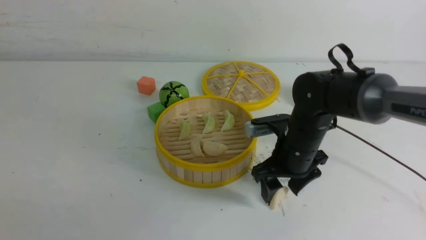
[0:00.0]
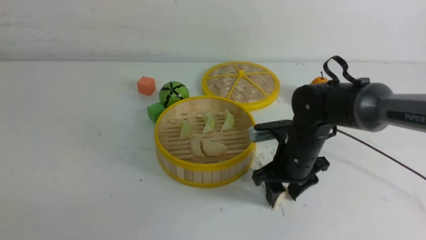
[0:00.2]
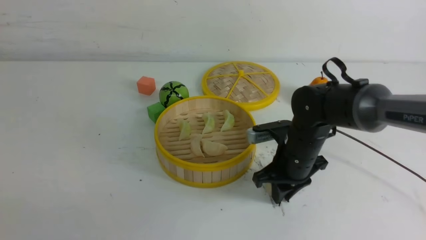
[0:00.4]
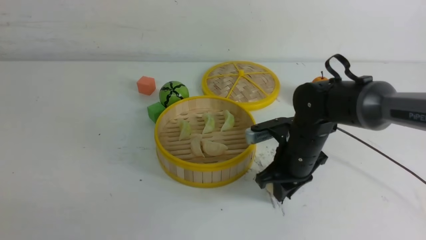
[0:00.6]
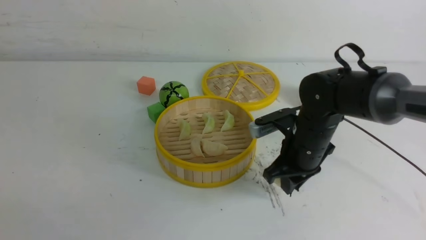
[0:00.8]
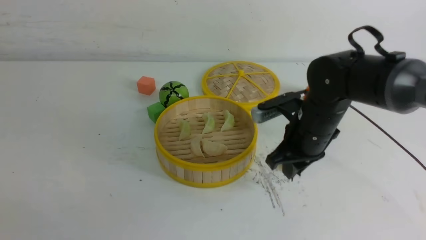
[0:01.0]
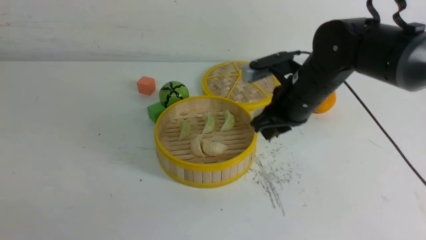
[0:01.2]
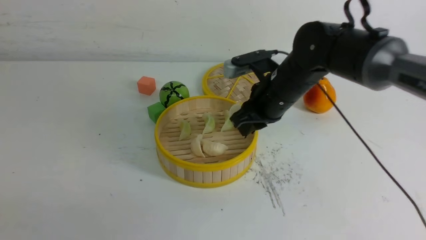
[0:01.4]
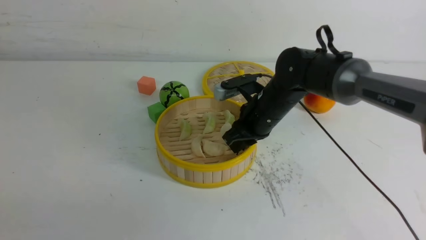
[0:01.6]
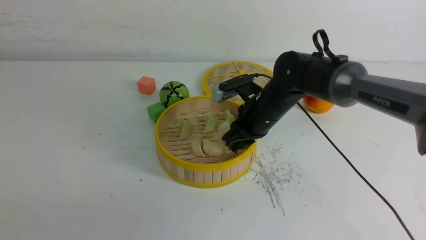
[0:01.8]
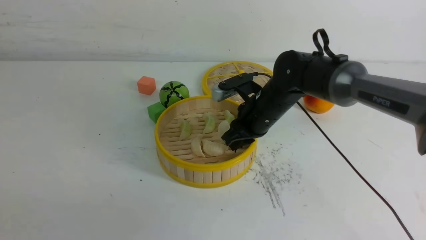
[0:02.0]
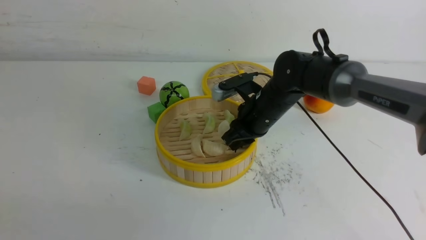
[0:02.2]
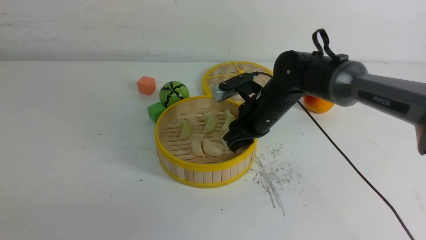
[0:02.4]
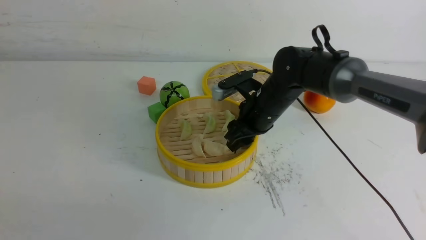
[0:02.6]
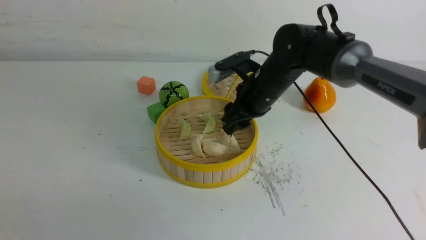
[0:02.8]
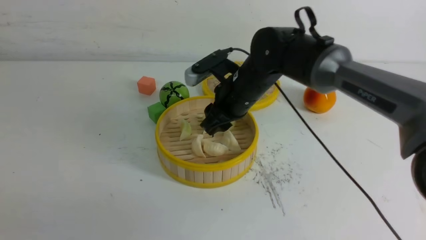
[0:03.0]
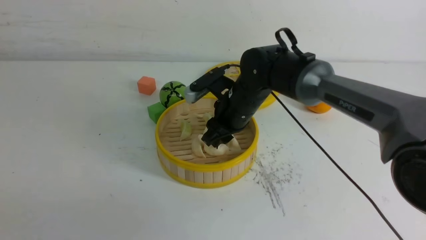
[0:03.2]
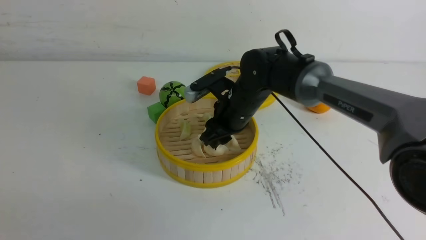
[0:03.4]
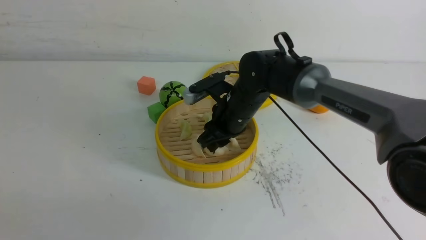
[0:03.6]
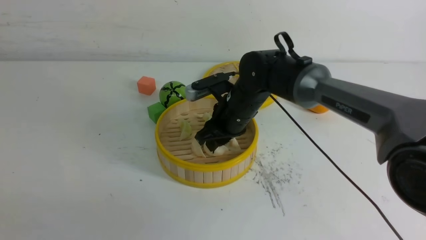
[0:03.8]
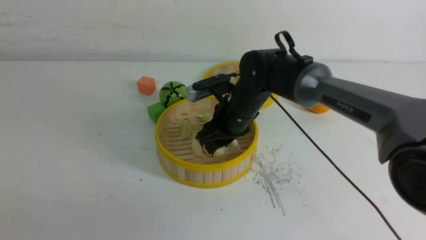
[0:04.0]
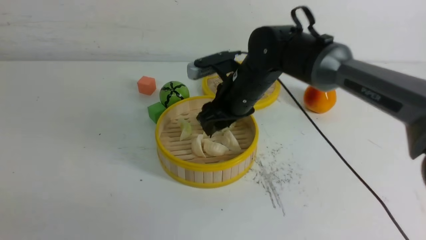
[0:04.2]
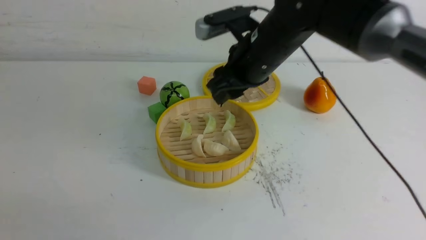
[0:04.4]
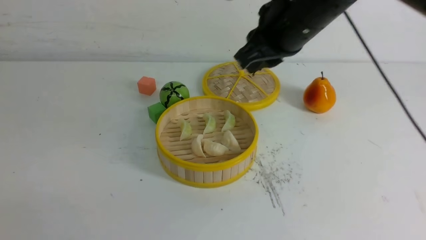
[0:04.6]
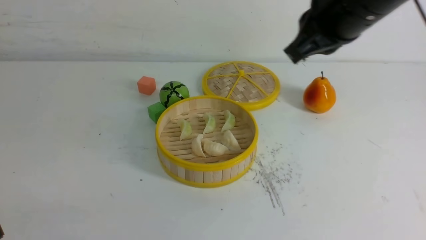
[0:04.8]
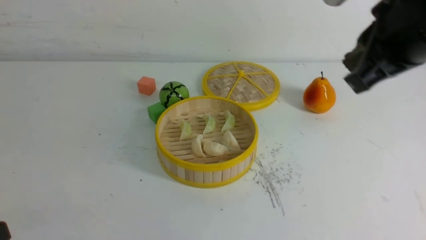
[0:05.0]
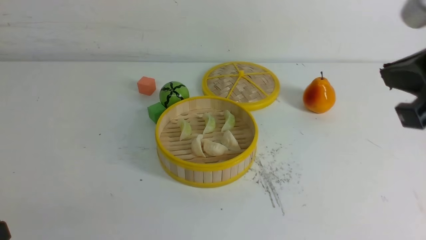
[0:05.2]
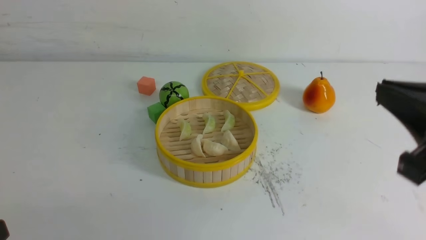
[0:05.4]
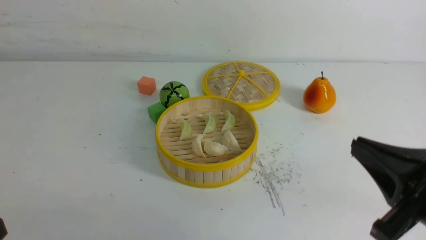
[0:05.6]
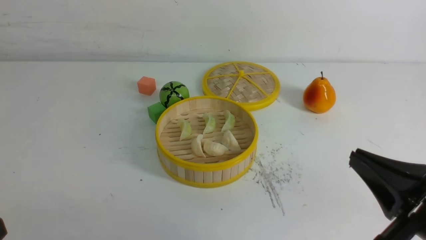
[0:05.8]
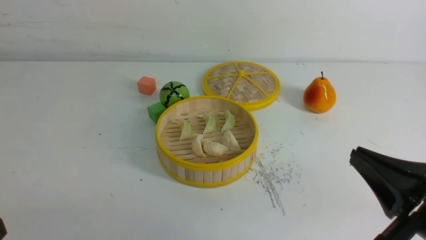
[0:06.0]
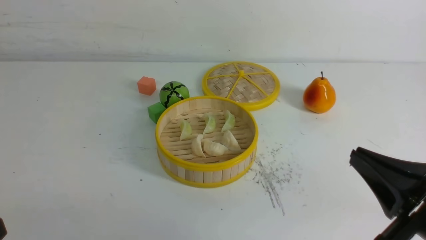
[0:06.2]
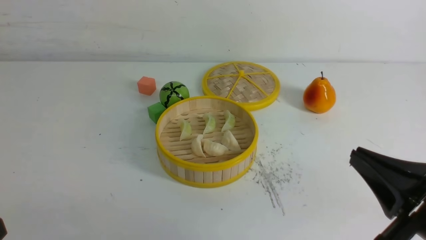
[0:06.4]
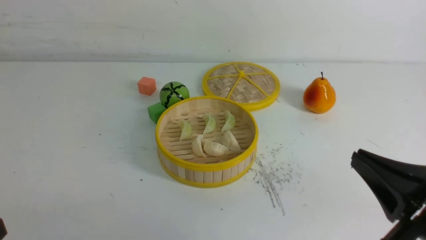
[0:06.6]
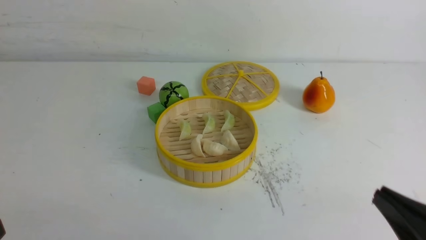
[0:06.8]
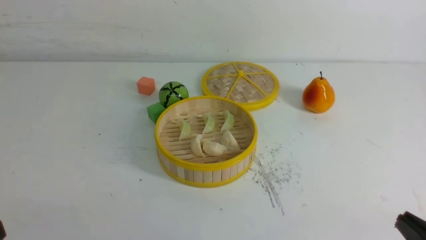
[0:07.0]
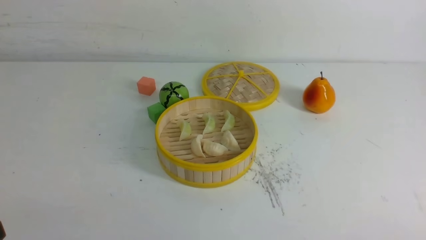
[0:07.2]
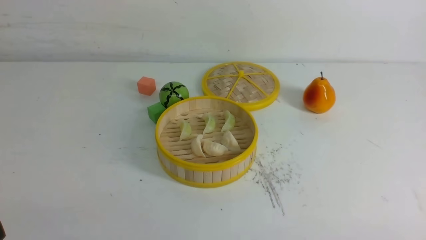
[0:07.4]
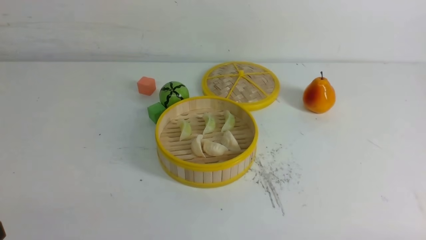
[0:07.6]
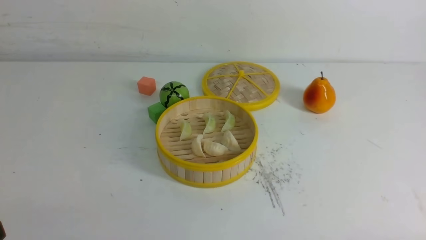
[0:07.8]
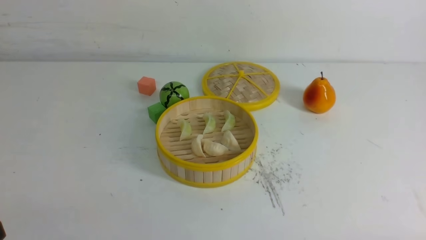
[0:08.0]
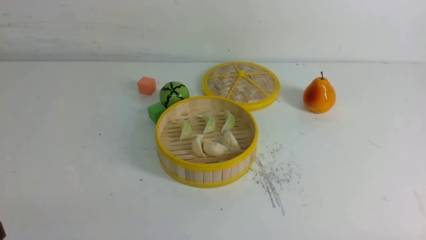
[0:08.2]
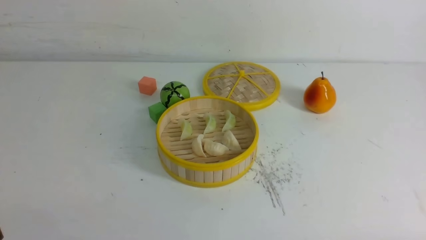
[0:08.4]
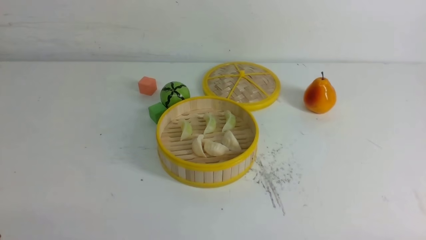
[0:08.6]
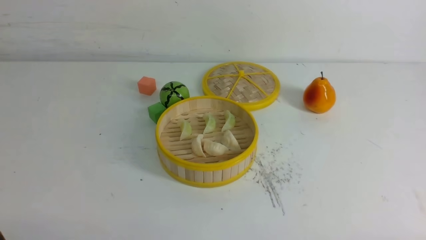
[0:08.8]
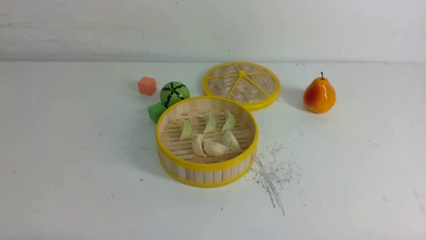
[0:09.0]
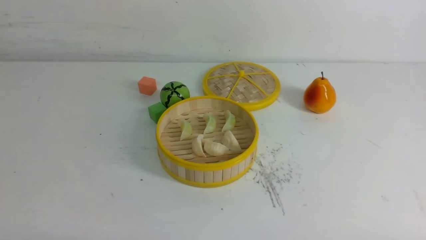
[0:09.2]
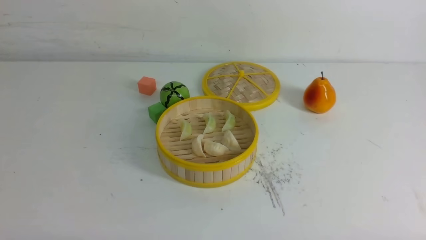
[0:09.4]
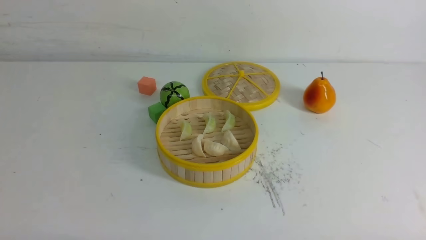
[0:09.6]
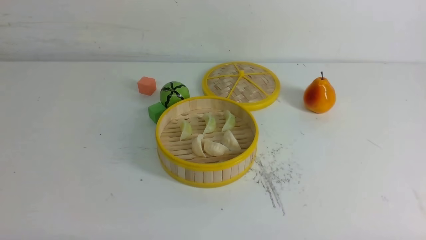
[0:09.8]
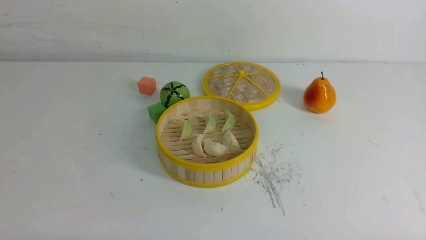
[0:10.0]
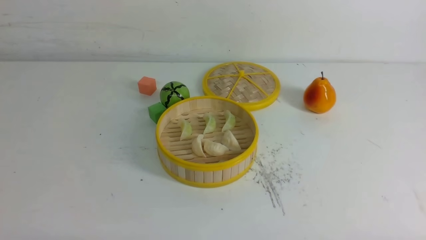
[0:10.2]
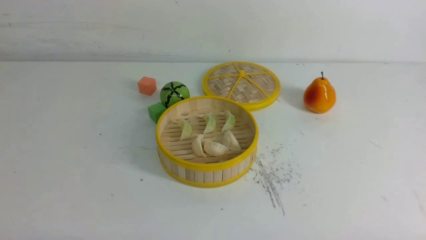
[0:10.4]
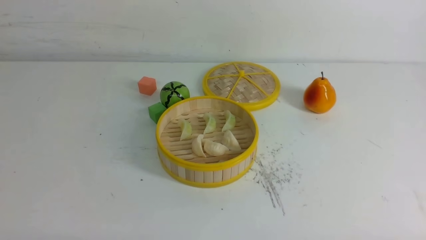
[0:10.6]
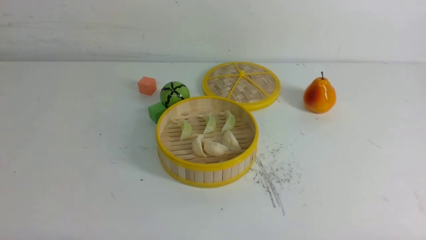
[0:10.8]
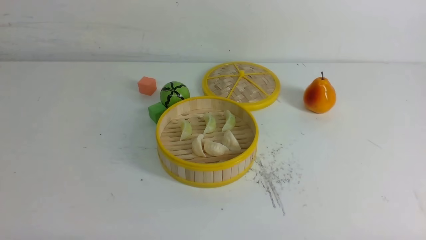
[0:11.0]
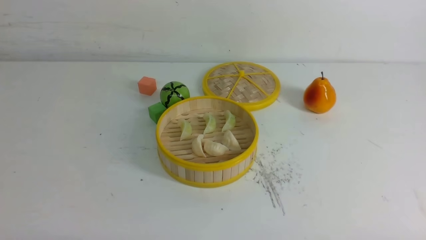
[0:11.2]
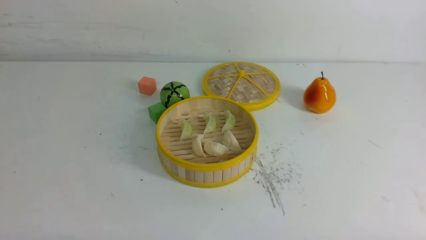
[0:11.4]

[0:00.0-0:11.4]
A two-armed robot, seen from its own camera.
Task of the whole recording: put the dumplings into the steamer on the white table.
Step, 0:01.0 to 0:02.6: use the right arm to put the dumpling into the steamer.
0:00.0 to 0:01.4: The right gripper heads upward, covering approximately 5 cm, and closes.
0:01.4 to 0:02.8: The right gripper opens its fingers.
0:02.8 to 0:04.2: The right gripper moves some 5 cm.
0:04.2 to 0:05.6: The right gripper heads backward and to the right, covering some 30 cm, and closes up.
0:05.6 to 0:07.2: The right gripper heads downward, backward and to the right, covering some 15 cm.
0:10.0 to 0:11.4: The two grippers keep their place.

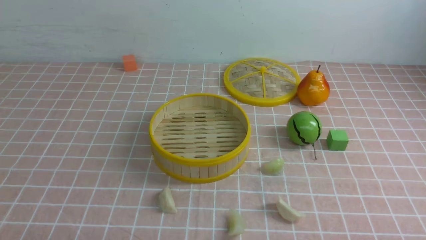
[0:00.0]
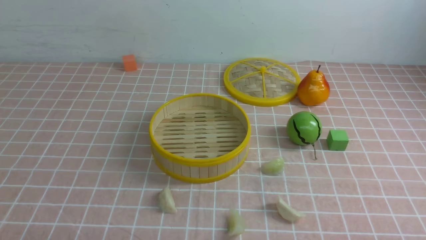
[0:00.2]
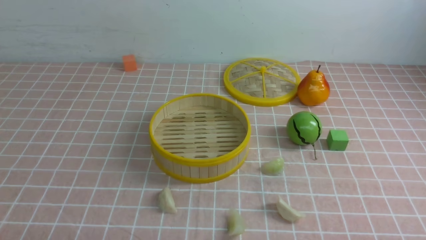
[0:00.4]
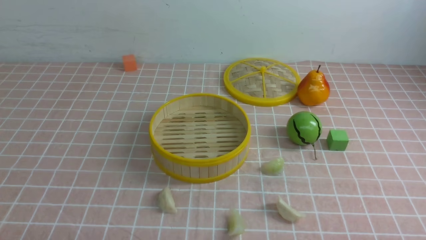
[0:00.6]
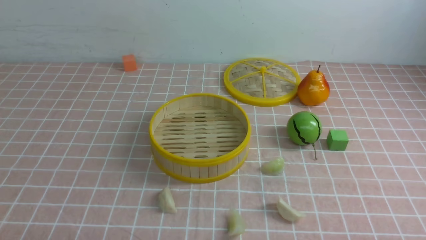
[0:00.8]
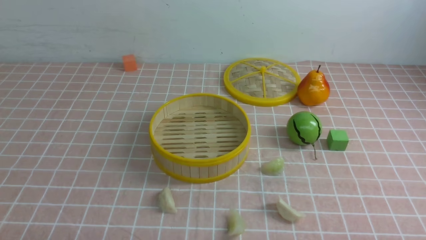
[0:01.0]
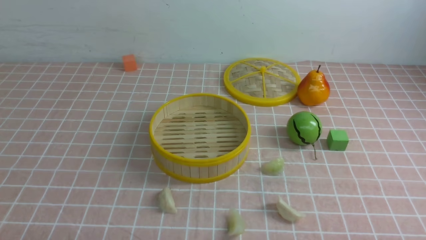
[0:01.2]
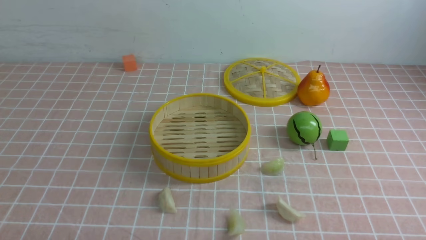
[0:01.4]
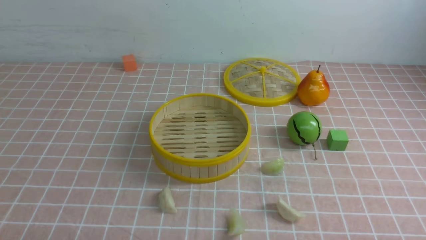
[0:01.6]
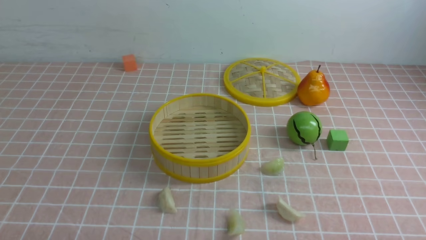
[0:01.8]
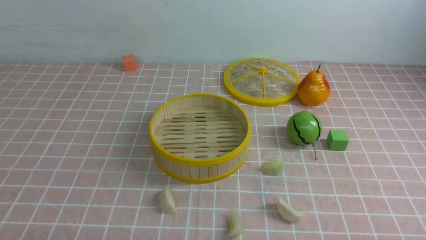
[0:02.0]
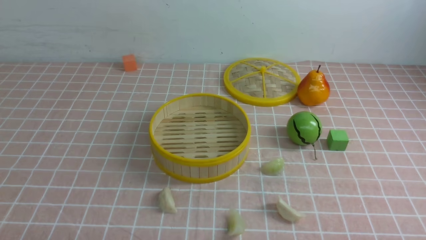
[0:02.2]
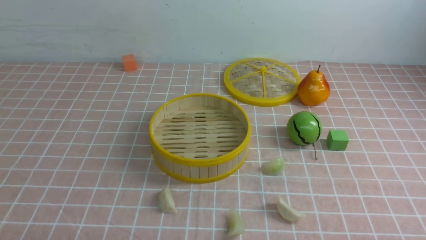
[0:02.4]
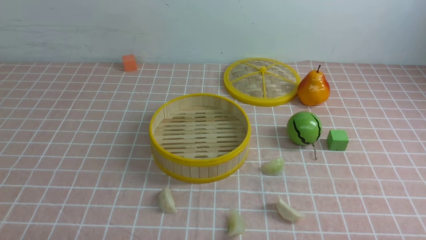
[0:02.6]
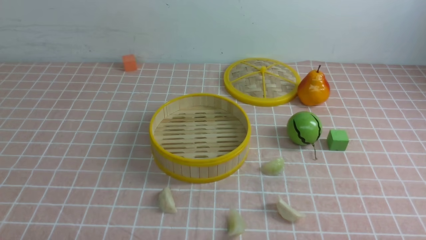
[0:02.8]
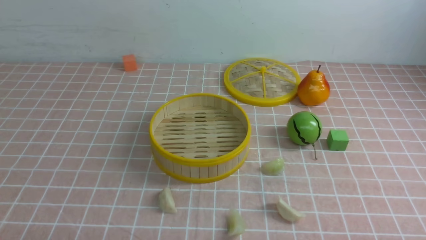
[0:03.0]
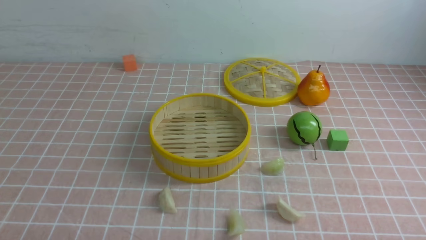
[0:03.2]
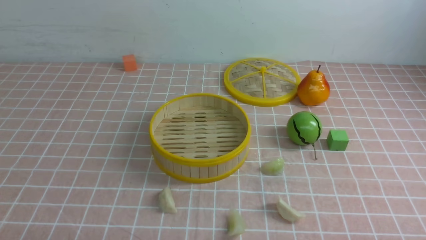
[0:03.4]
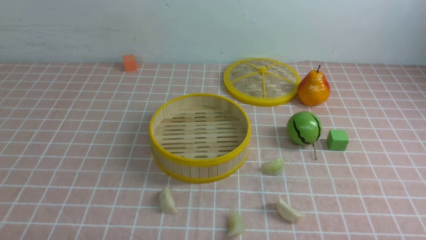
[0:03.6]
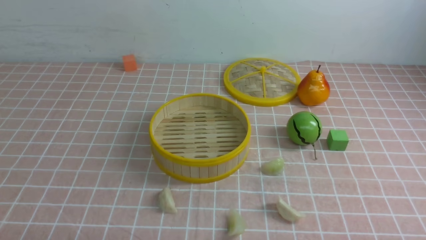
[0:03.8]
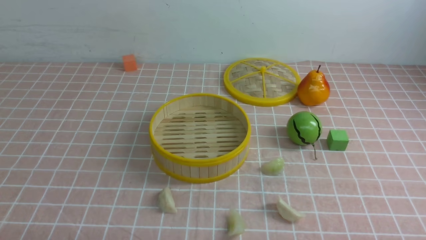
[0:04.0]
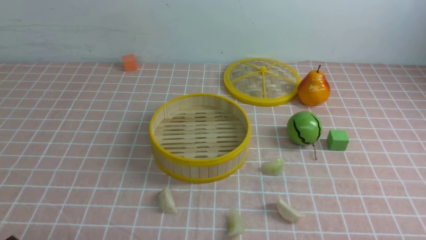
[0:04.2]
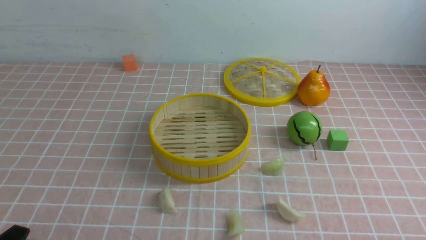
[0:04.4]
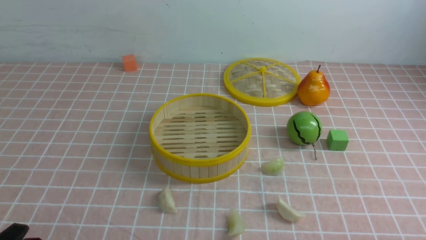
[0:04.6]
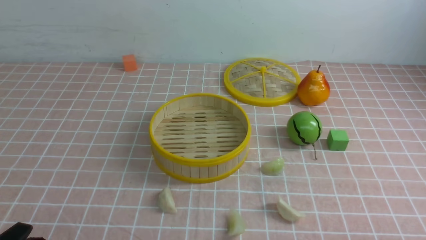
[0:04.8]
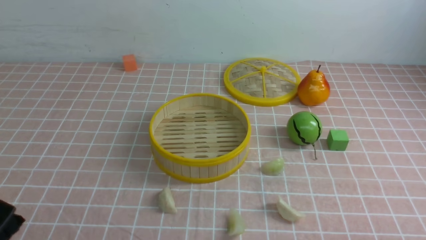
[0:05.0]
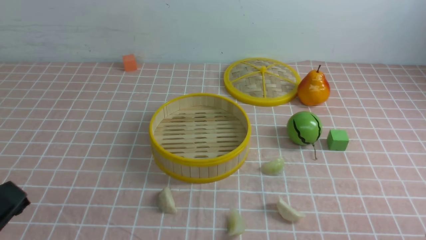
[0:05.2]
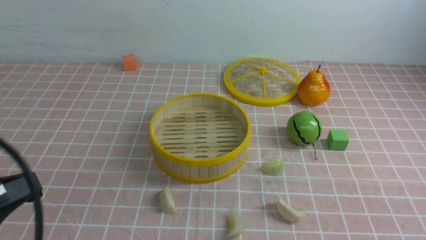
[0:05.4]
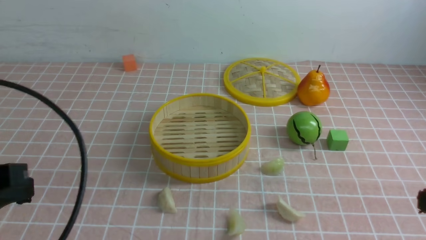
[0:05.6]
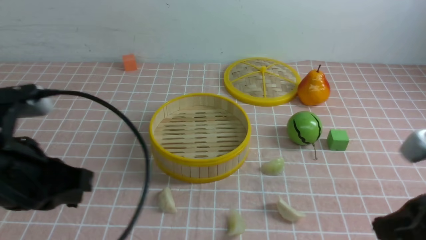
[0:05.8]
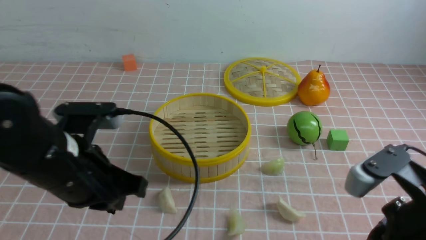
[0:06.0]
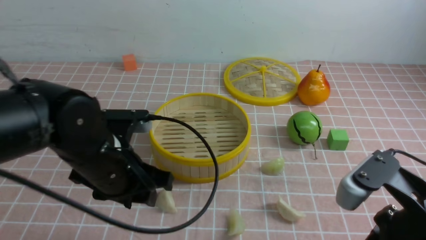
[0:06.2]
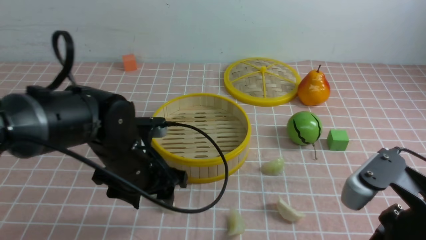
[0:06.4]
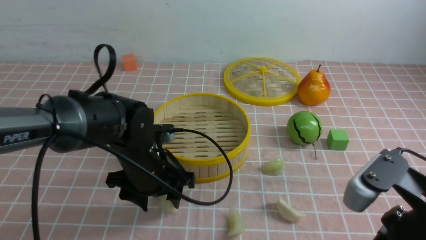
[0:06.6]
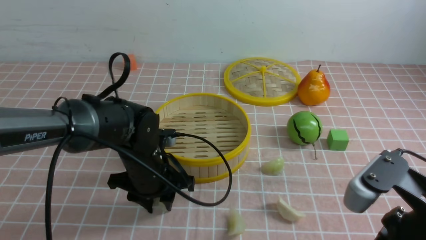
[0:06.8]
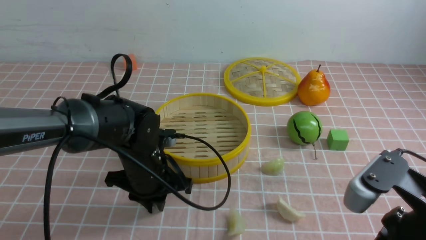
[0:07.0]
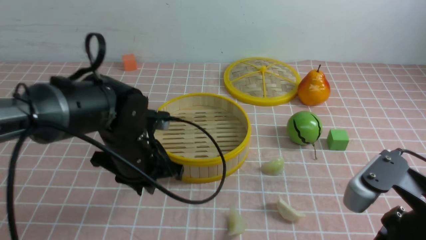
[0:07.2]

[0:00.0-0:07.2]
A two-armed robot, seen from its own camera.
Task of the whole recording: put the dumplings into the steamer on the table with the pink tablecloth.
Step, 0:00.0 to 0:07.0: use the left arm to grab a dumpling.
0:00.0 to 0:02.8: The two grippers keep their place.
0:04.4 to 0:05.8: The right gripper heads upward and forward, covering some 15 cm, and closes, while the left gripper travels forward and upward by approximately 20 cm, and closes.
0:05.8 to 0:07.2: The left gripper moves forward, to the right and downward, approximately 20 cm, and opens, then closes again.
